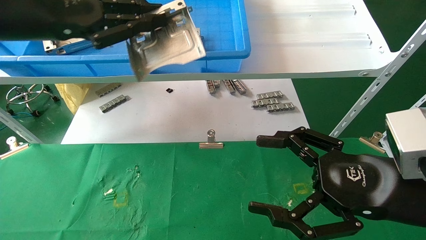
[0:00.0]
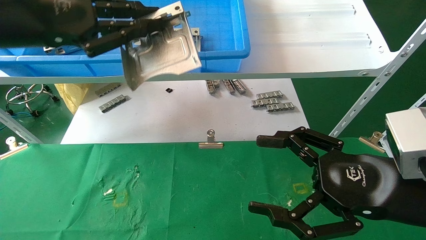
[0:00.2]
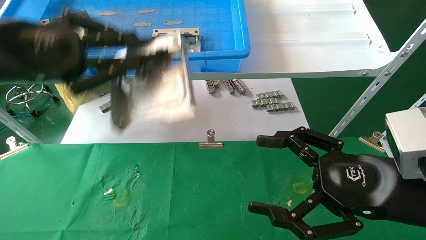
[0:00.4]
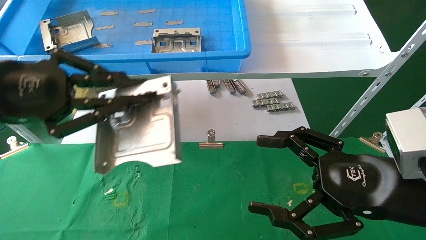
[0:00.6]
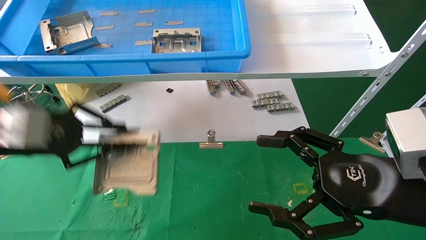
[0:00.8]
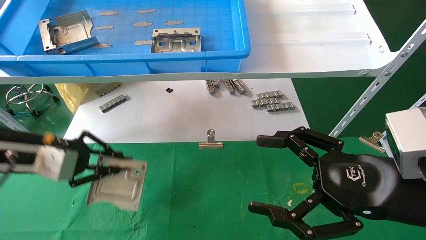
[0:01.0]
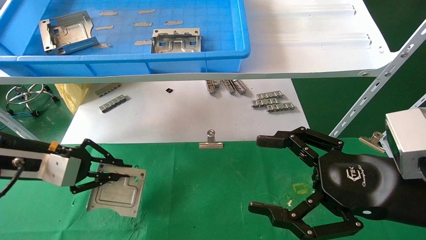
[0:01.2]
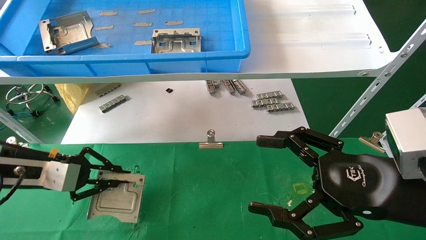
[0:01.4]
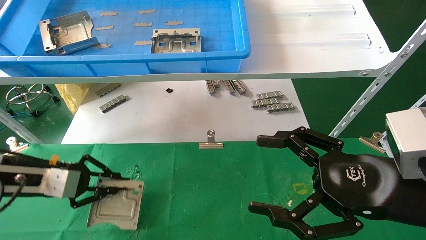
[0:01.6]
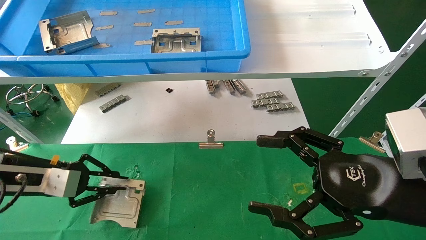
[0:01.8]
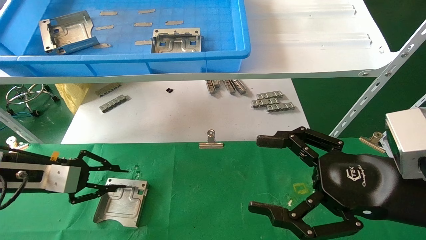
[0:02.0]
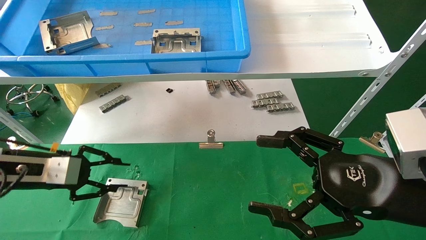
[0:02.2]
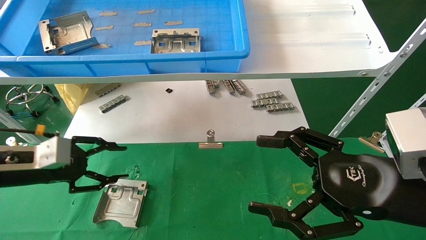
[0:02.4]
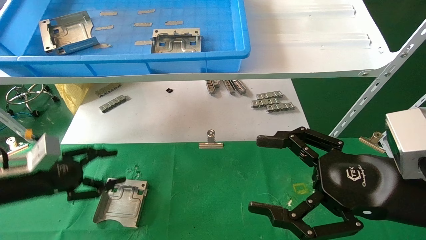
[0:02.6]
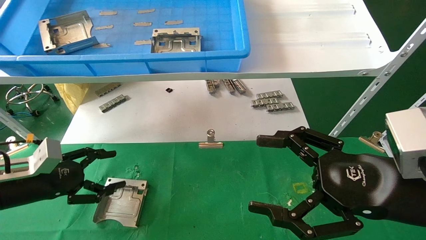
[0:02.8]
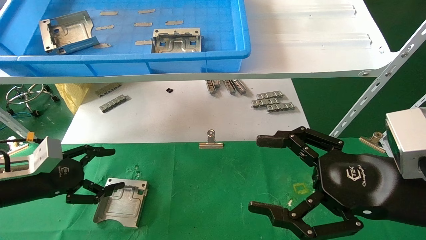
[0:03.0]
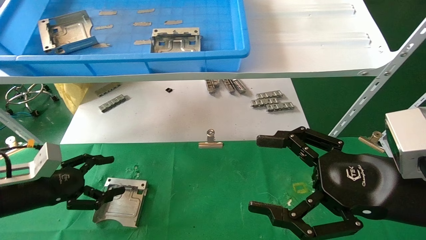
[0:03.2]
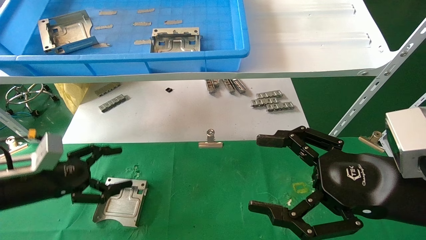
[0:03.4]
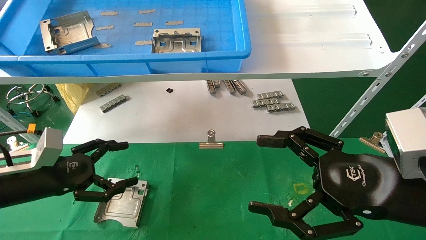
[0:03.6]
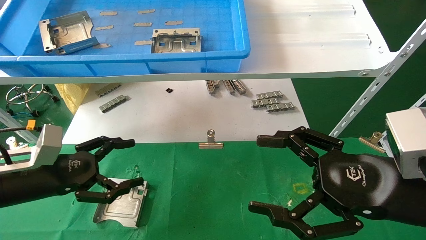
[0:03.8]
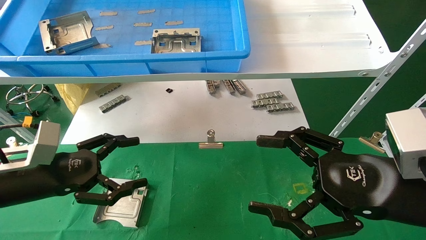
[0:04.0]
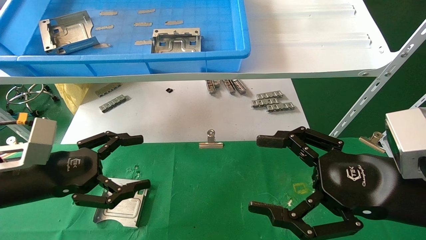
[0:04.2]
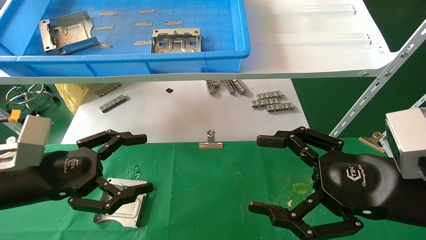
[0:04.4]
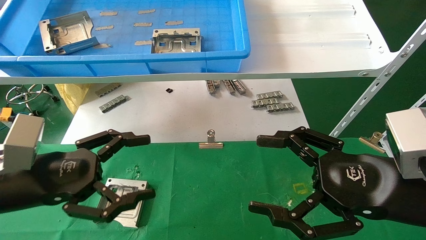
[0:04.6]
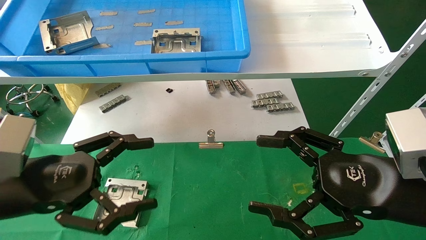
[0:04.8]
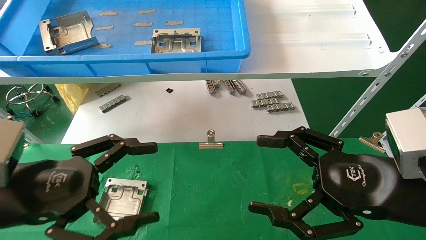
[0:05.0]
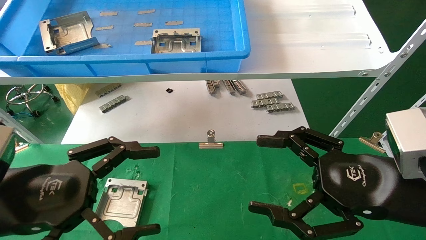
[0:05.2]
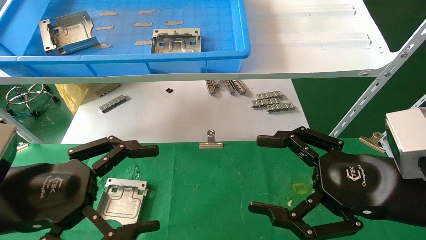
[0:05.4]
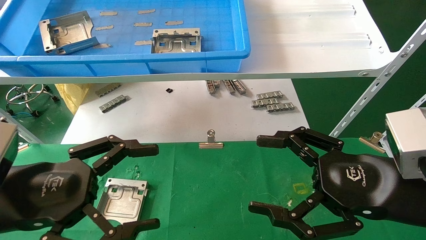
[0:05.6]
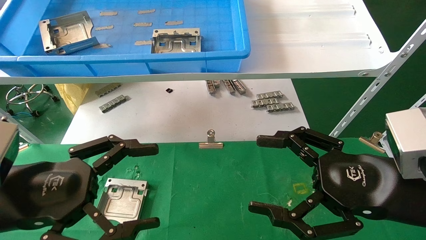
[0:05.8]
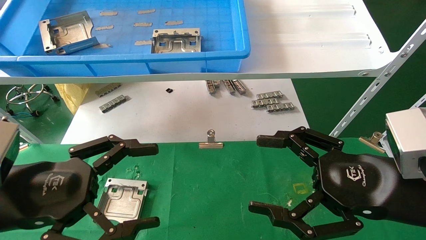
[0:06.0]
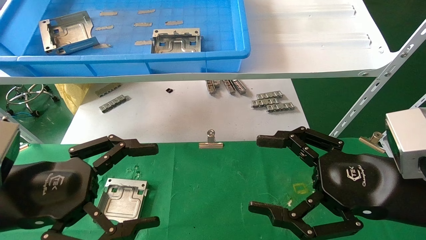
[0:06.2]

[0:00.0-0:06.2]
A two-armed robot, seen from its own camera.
Task of the whole recording: use the mechanical arm to pick up the parts and place them on the table.
Step, 0:00.0 to 0:01.8: Place the hard drive bracket into the box.
0:00.0 to 0:01.6: The left gripper is displaced downward by some 25 cm.
0:01.6 to 0:03.2: The left gripper opens.
0:03.2 to 0:04.6: The left gripper shifts about 15 cm backward, to the right and upward.
0:04.6 to 0:06.2: The left gripper shifts by some 5 cm.

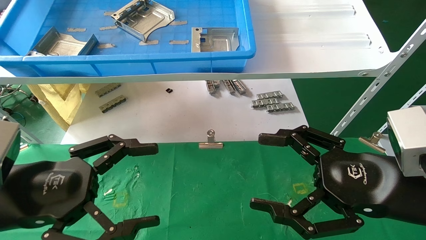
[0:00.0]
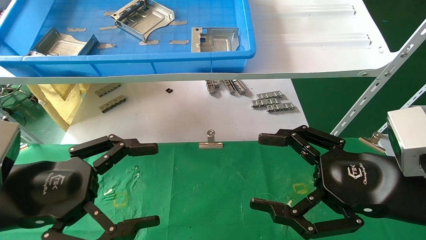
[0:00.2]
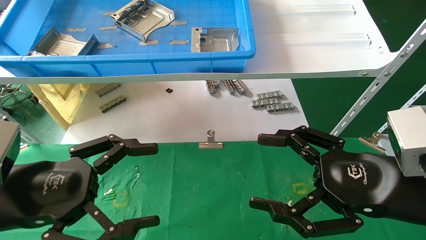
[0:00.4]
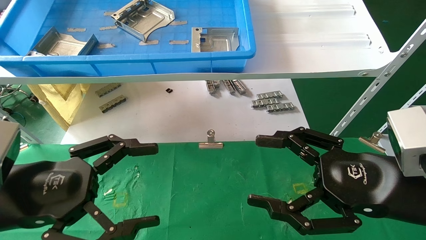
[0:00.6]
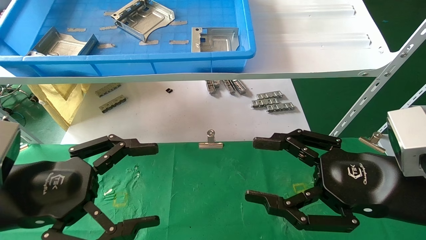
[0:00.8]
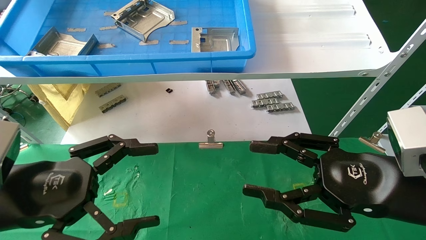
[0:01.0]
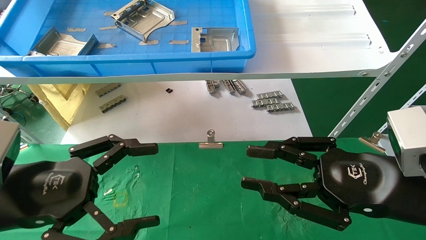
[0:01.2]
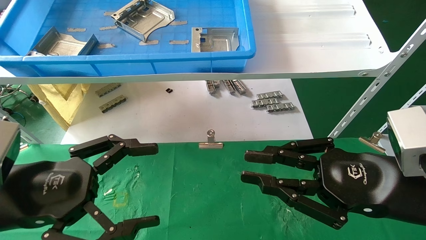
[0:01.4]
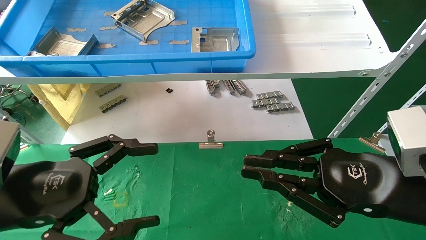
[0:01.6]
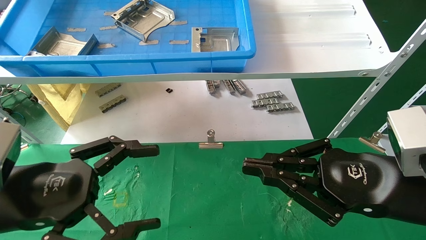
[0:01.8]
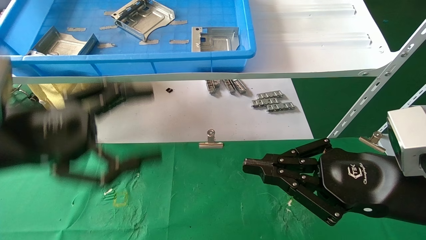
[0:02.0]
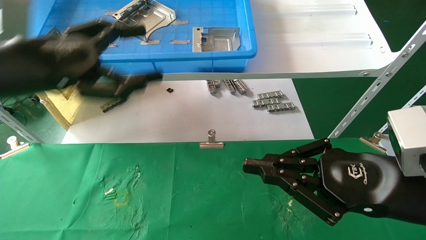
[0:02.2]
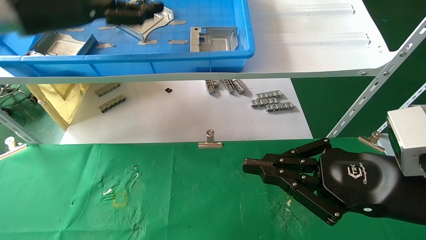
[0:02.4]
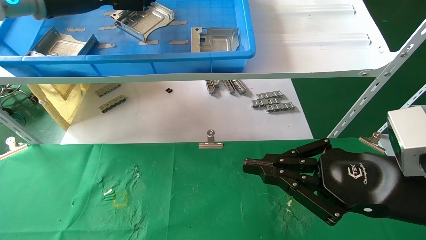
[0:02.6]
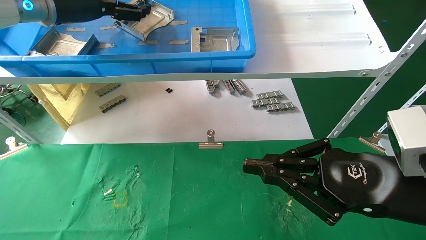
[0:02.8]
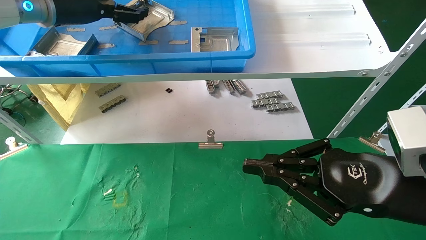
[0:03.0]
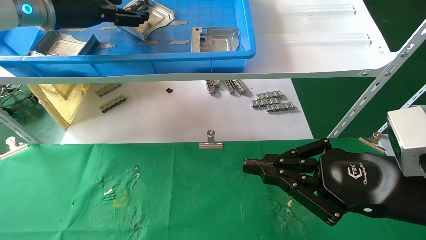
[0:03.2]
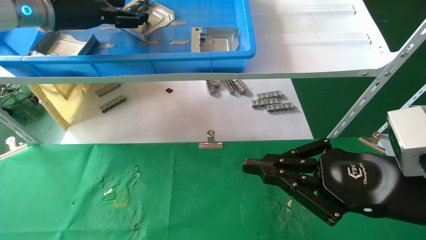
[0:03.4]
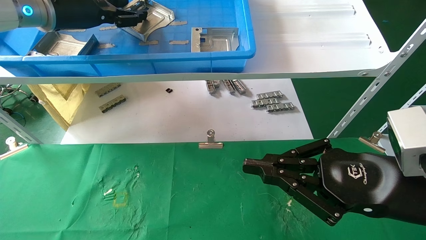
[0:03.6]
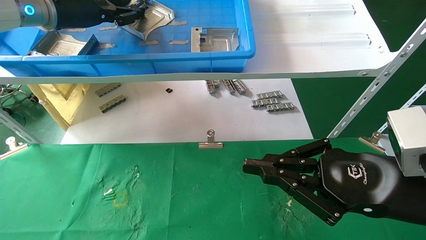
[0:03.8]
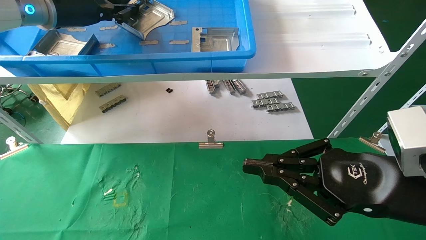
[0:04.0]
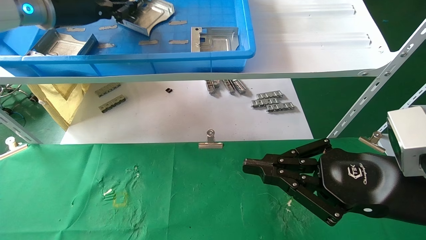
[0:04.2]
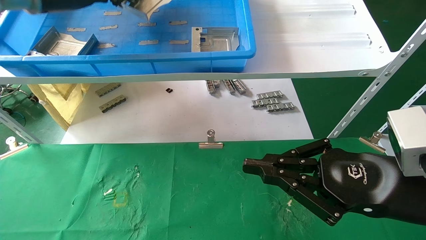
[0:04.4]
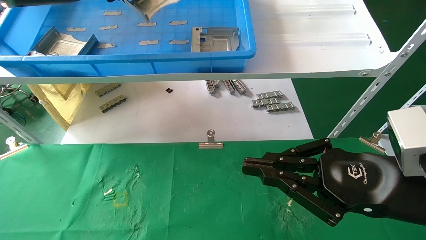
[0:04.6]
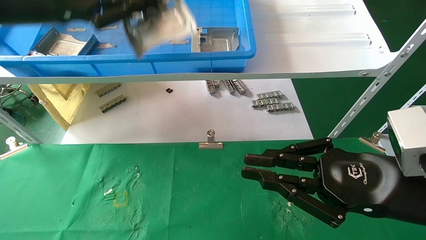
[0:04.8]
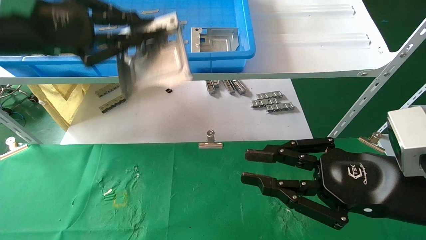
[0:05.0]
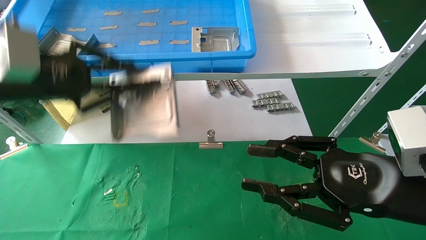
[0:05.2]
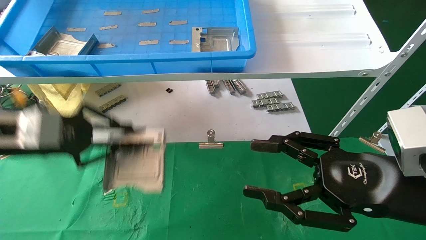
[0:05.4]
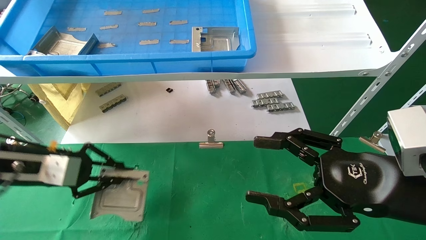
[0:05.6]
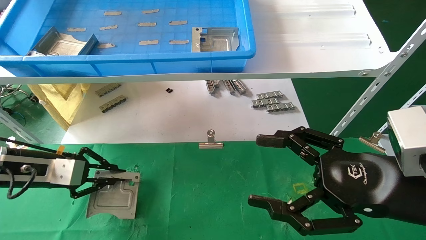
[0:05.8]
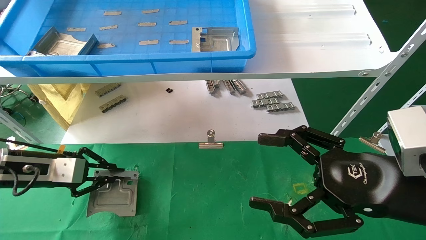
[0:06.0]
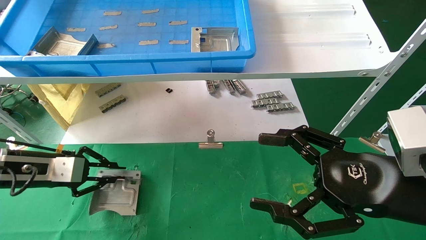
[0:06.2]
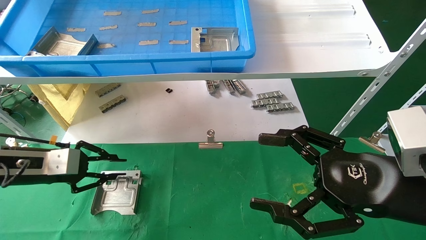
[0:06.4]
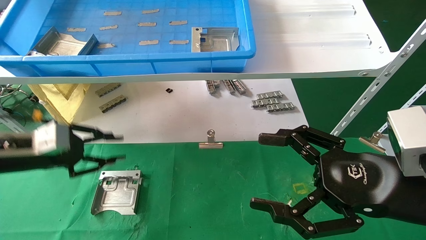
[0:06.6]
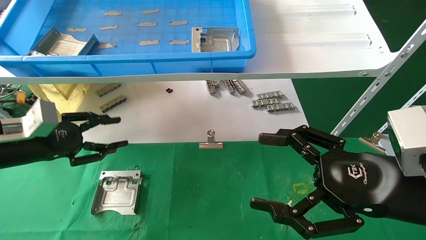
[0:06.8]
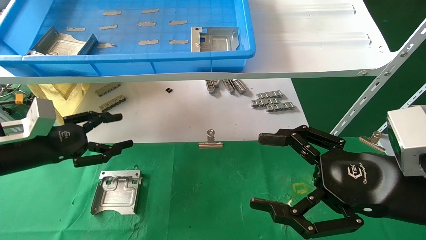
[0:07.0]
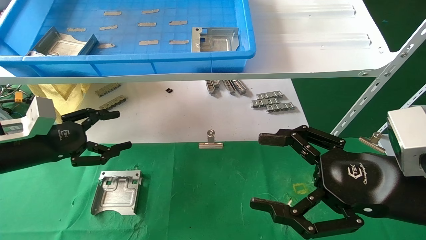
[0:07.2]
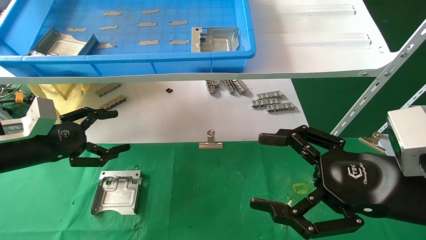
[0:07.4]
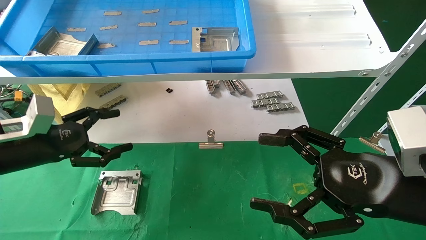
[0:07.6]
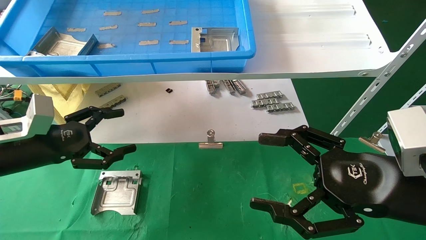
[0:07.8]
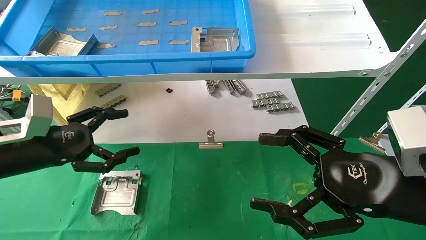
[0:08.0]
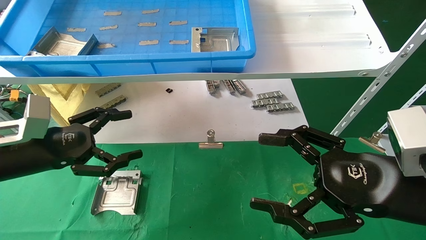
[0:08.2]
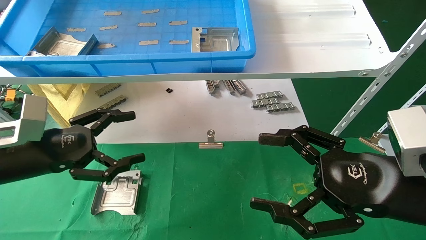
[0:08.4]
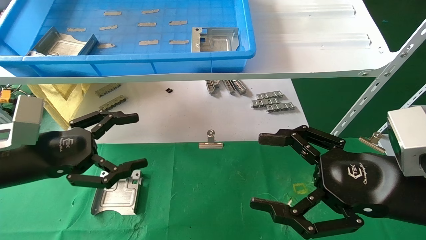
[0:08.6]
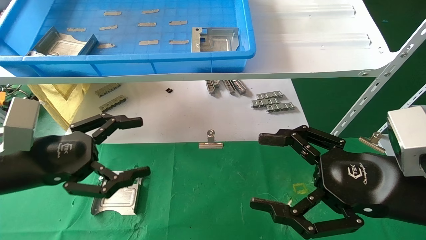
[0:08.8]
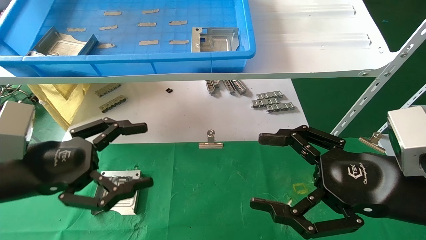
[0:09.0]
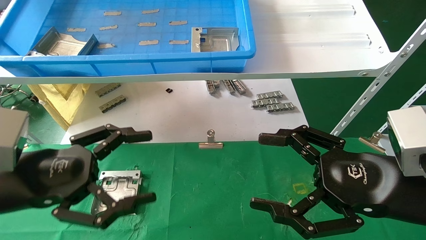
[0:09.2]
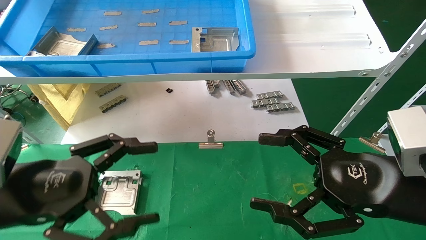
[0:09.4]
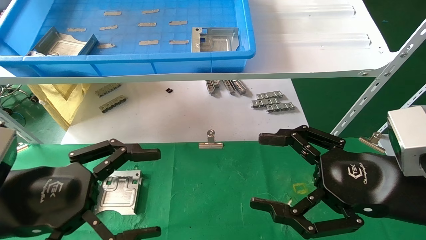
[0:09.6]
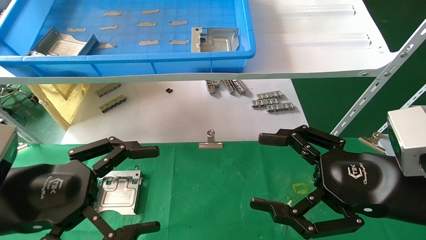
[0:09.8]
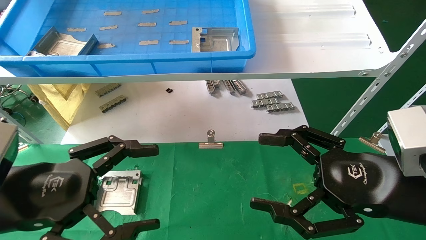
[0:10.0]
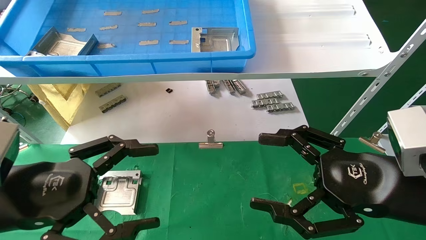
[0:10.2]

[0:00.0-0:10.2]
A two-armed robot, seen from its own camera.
Task of the whole recording: use the mechanical arm to pick up the parts and place them on the table.
Step, 0:02.2 to 0:04.0: Pick up the hard drive bracket from the feeding area.
Step, 0:04.2 to 0:06.6: Place the hard drive bracket into the box.
0:00.0 to 0:01.4: The right gripper closes its fingers.
0:01.4 to 0:03.0: The left gripper shifts roughly 30 cm upward and forward.
0:03.0 to 0:04.4: The left gripper closes.
0:04.4 to 0:05.8: The right gripper opens; the left gripper moves downward, approximately 30 cm.
0:05.8 to 0:07.2: The left gripper opens its fingers.
0:07.2 to 0:08.8: The left gripper moves backward and to the right, about 10 cm.
0:08.8 to 0:10.2: The left gripper is displaced backward by about 5 cm.
